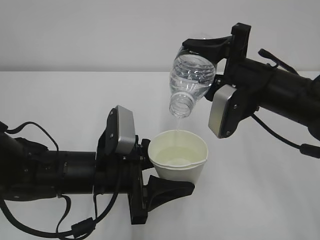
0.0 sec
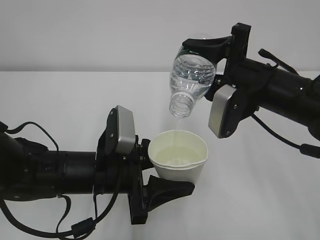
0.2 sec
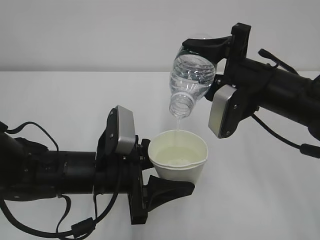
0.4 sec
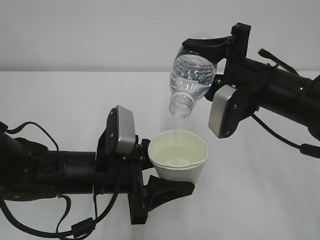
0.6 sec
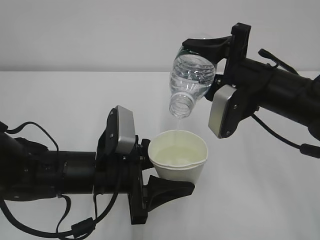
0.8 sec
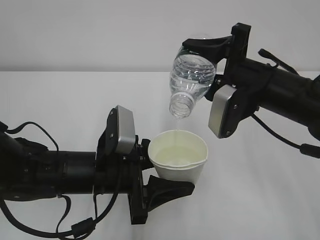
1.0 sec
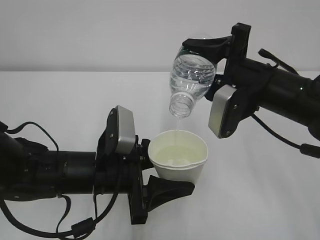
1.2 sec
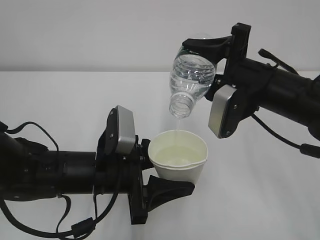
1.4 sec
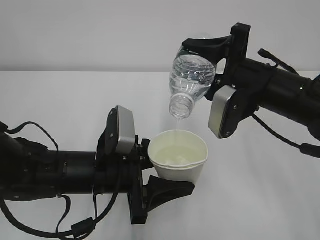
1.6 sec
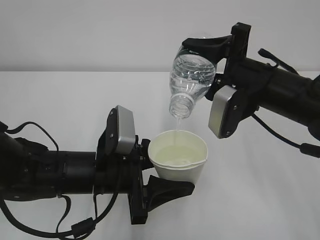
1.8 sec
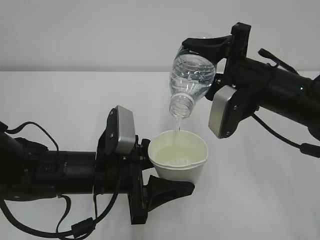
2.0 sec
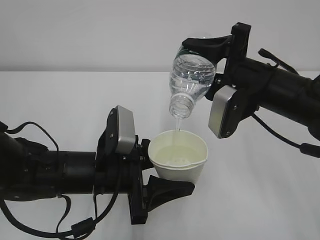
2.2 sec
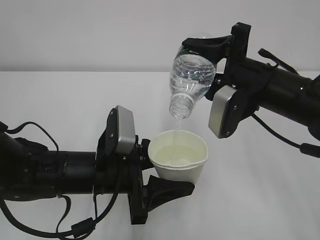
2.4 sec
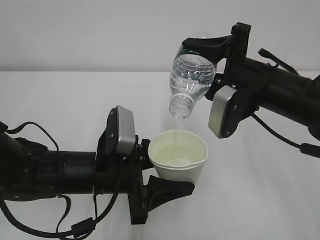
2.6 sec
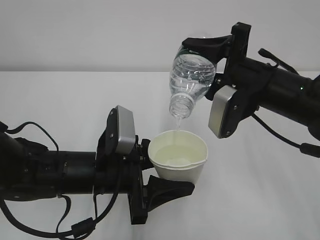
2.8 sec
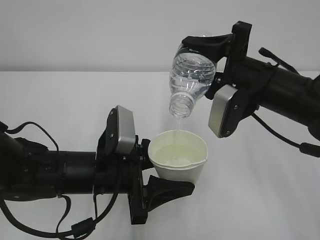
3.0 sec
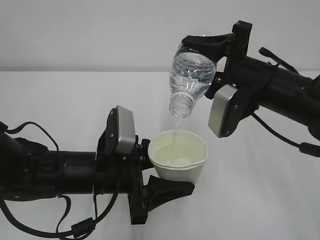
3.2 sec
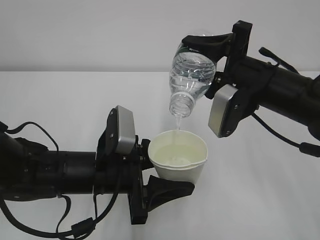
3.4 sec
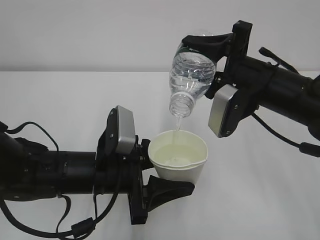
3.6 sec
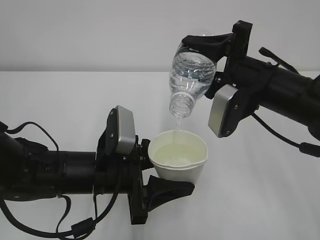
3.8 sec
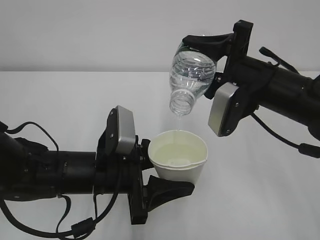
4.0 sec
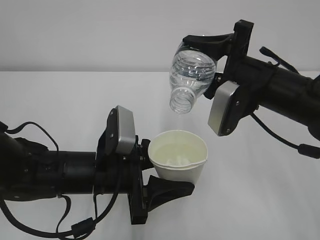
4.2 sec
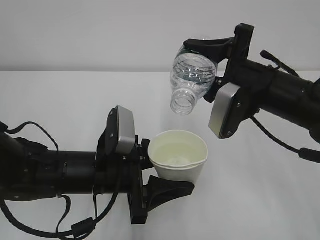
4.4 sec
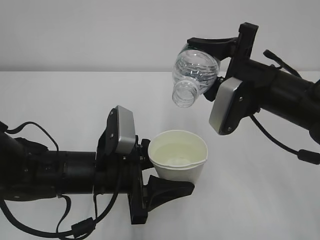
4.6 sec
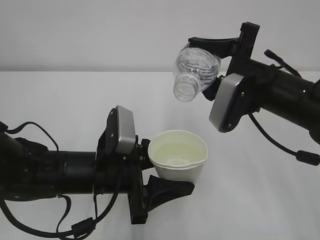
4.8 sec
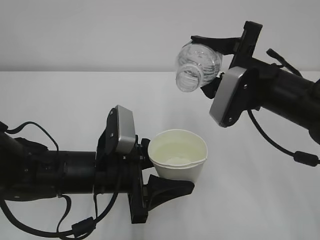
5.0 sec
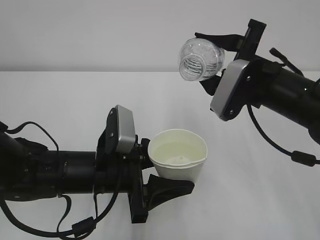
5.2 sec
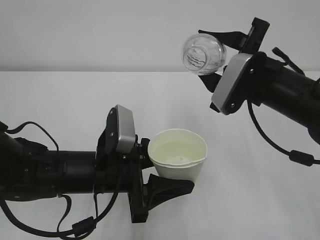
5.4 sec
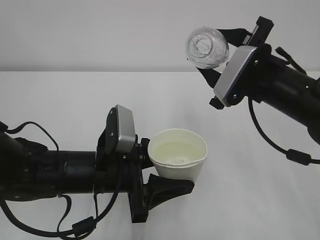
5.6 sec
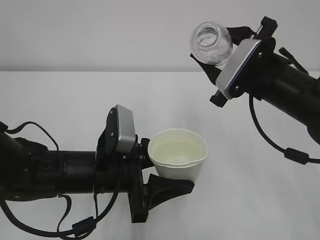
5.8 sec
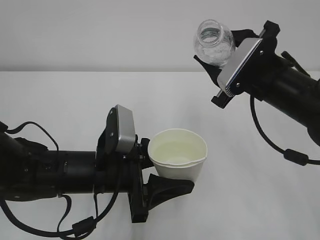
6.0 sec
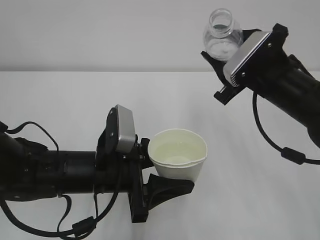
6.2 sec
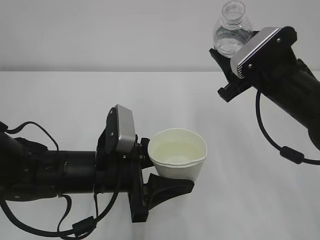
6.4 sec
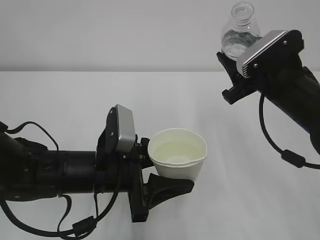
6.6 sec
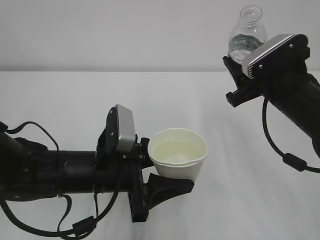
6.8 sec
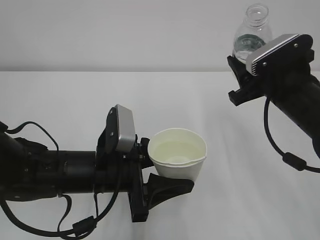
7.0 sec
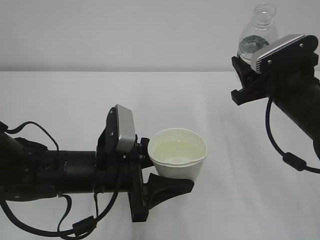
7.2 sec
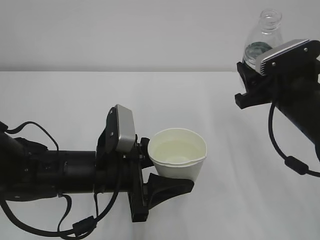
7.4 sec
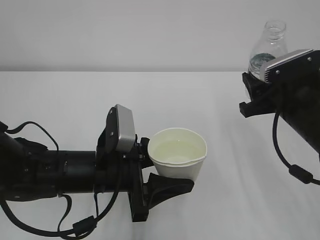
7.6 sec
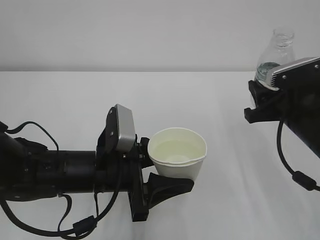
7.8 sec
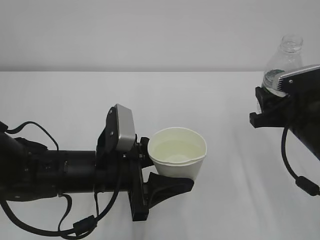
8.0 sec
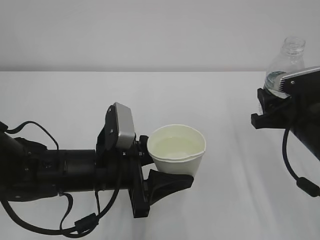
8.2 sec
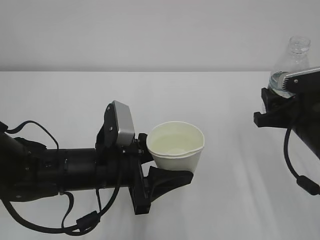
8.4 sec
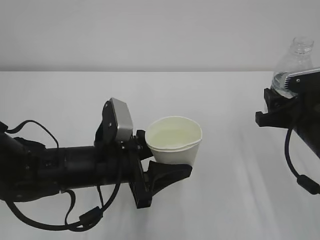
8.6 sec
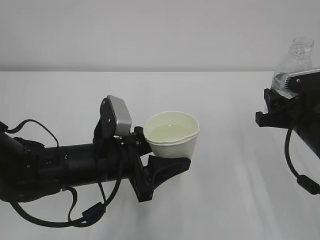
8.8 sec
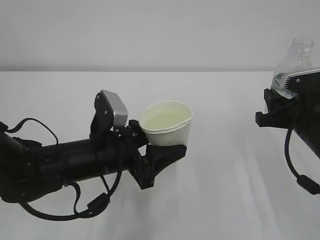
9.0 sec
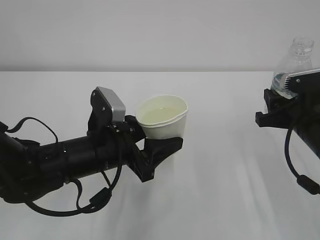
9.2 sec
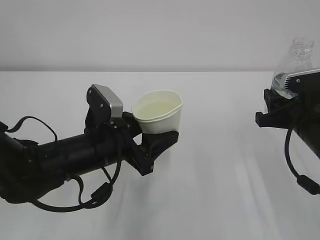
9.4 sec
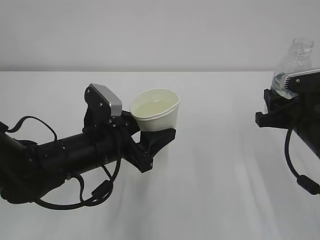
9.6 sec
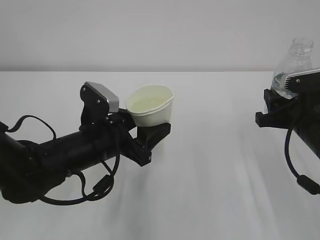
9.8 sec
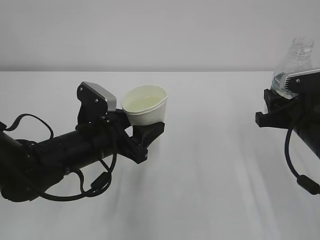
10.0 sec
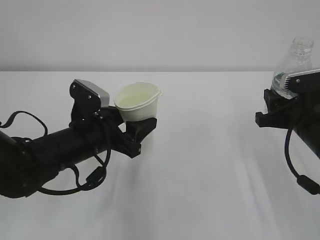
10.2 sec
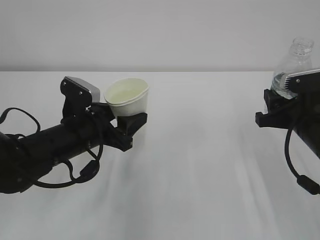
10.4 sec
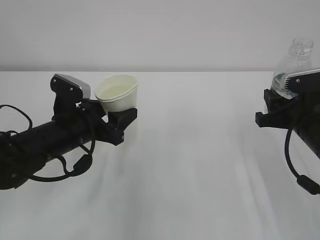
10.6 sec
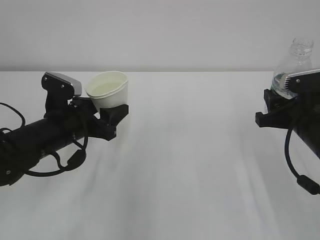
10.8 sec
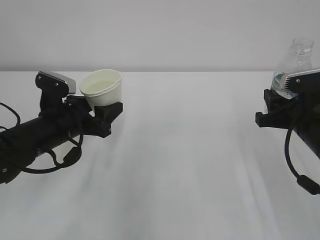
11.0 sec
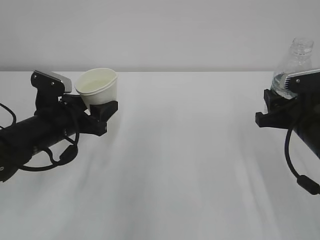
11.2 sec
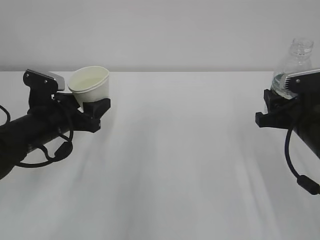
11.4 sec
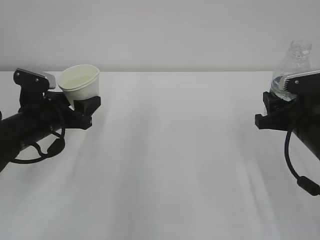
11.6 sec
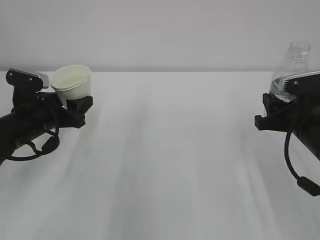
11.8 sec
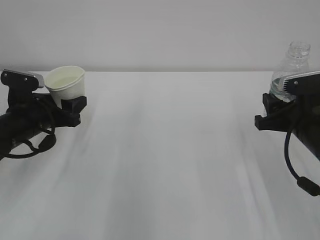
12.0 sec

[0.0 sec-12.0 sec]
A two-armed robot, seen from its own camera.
0.0 sec to 3.0 sec: Both grippers stay about where they are.
3.0 sec to 4.4 sec: The grippers stay close to where they were, moving slightly.
6.0 sec to 7.6 sec: The right gripper ends up some 5 cm from where it was.
7.6 sec to 9.0 sec: There are only small adjustments of the grippers.
9.0 sec to 10.4 sec: The left gripper moves approximately 5 cm.
10.4 sec to 12.0 sec: The left gripper heads to the left, covering some 10 cm.

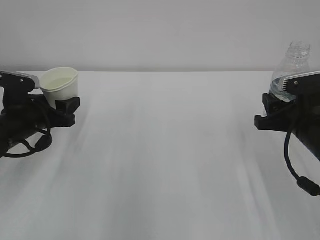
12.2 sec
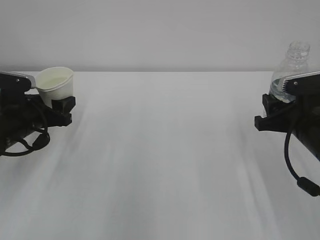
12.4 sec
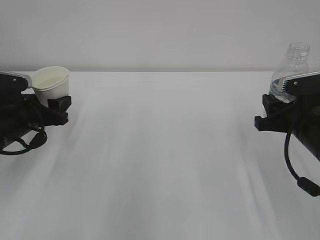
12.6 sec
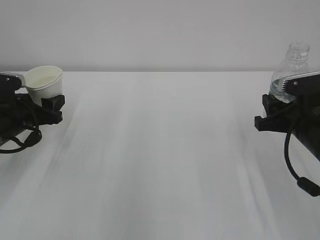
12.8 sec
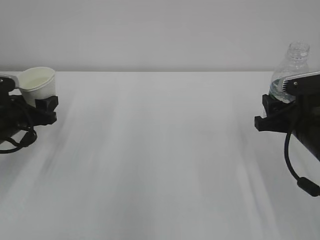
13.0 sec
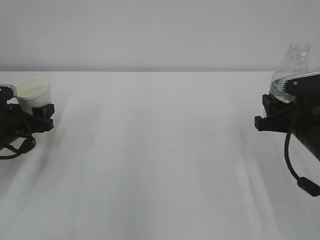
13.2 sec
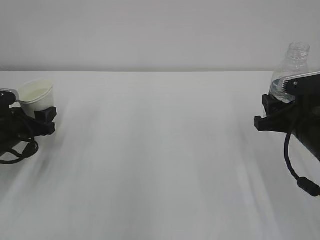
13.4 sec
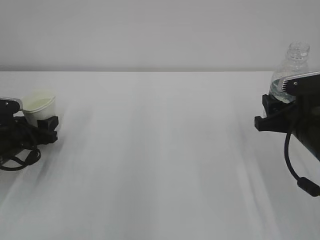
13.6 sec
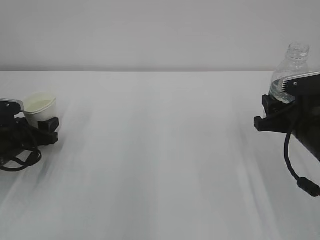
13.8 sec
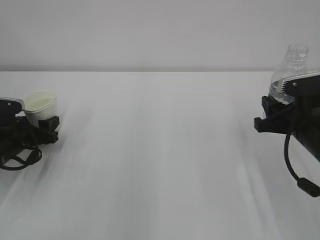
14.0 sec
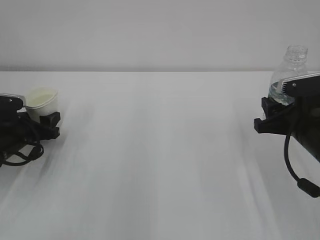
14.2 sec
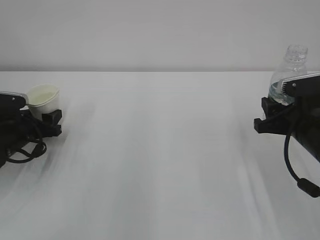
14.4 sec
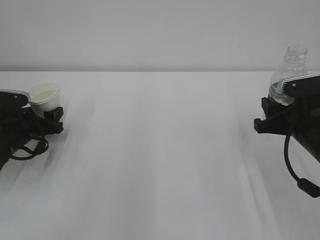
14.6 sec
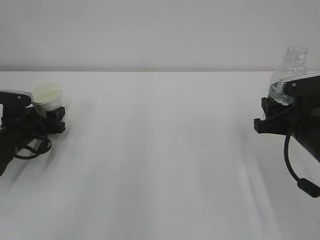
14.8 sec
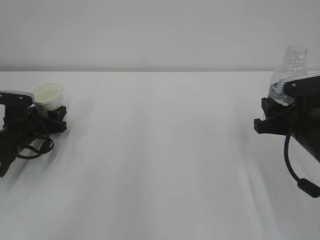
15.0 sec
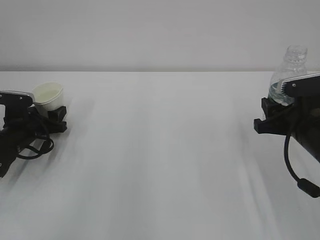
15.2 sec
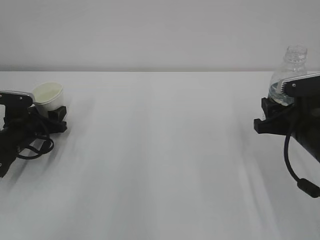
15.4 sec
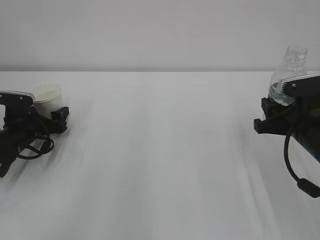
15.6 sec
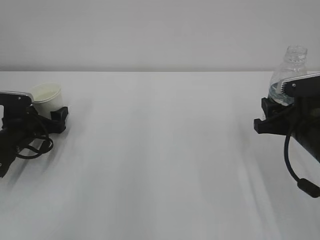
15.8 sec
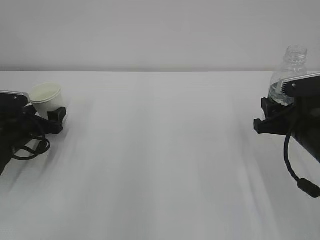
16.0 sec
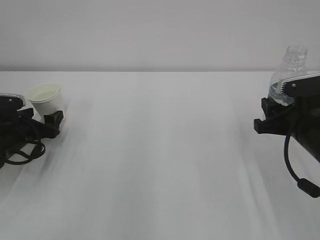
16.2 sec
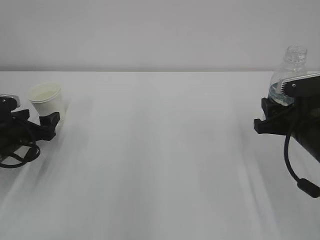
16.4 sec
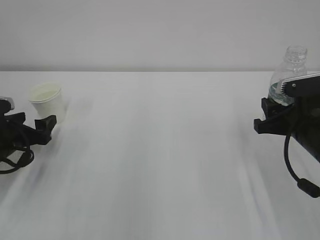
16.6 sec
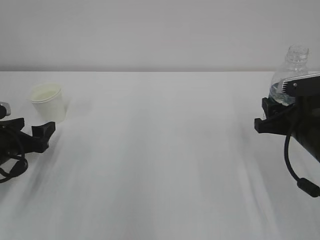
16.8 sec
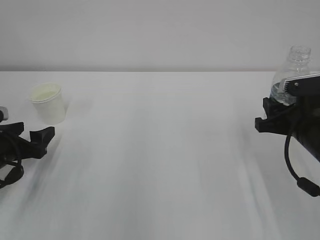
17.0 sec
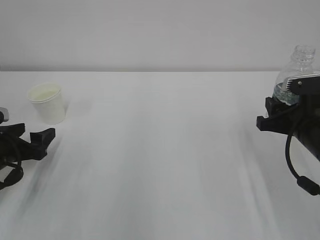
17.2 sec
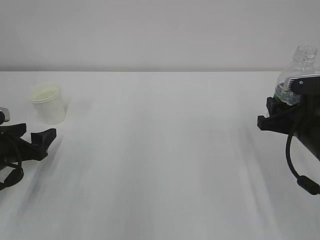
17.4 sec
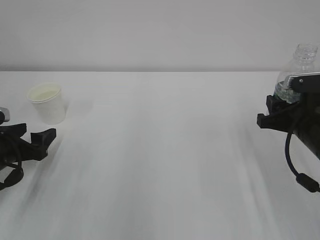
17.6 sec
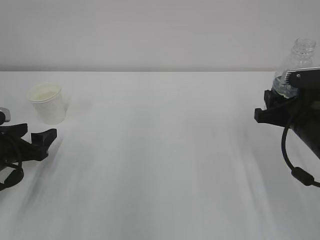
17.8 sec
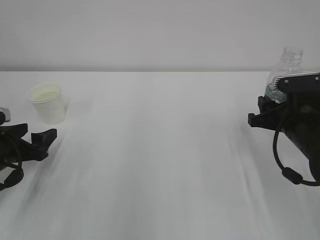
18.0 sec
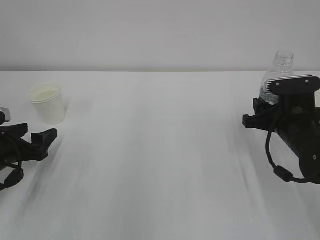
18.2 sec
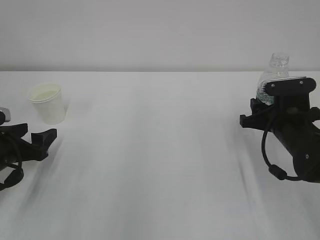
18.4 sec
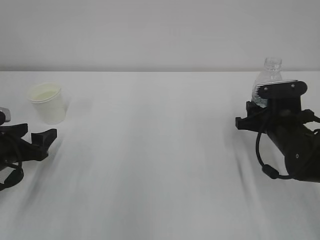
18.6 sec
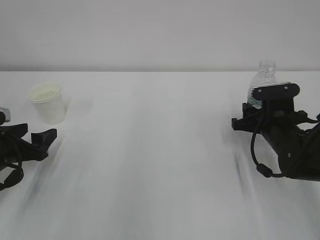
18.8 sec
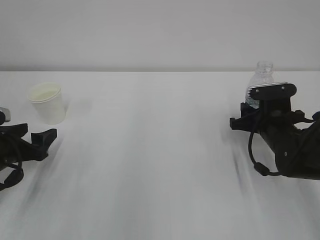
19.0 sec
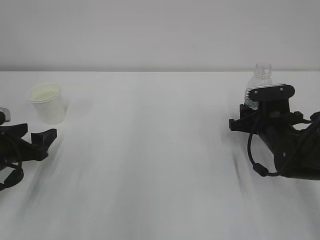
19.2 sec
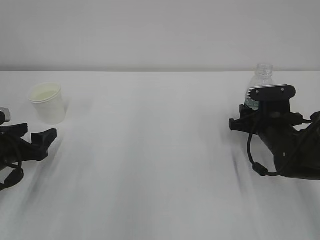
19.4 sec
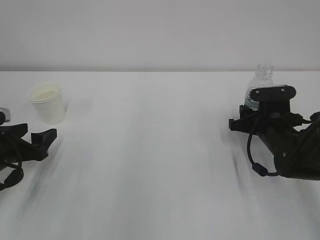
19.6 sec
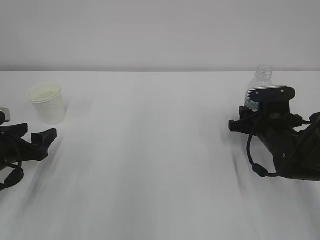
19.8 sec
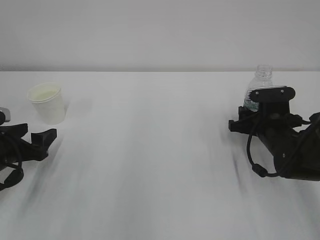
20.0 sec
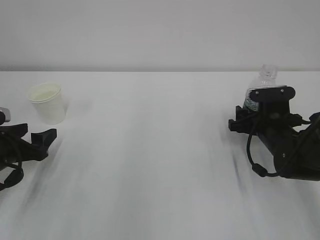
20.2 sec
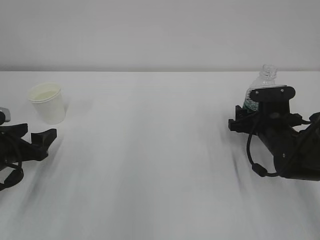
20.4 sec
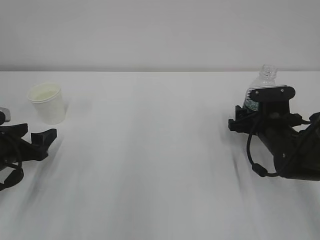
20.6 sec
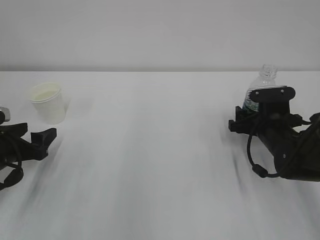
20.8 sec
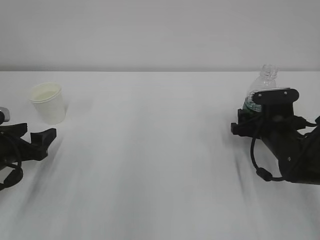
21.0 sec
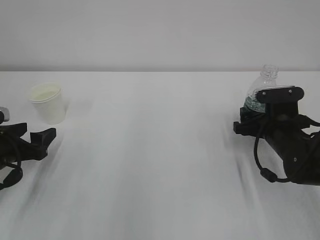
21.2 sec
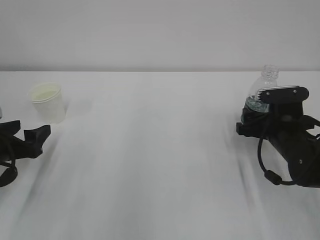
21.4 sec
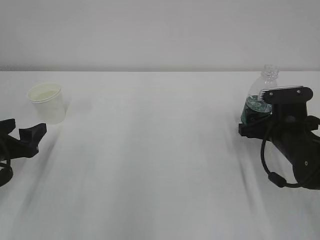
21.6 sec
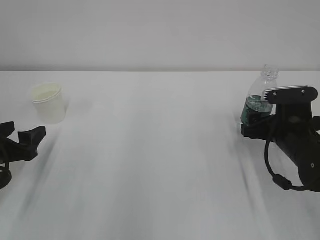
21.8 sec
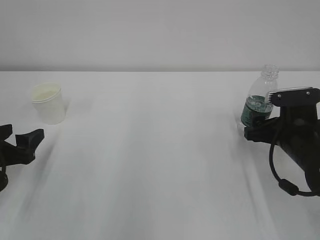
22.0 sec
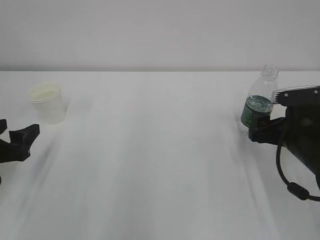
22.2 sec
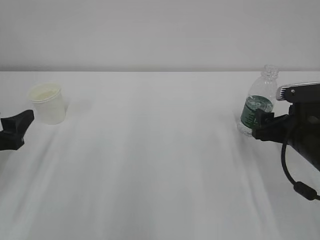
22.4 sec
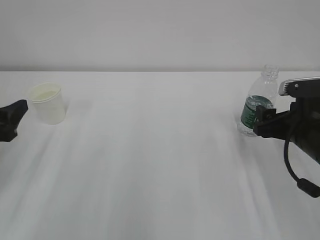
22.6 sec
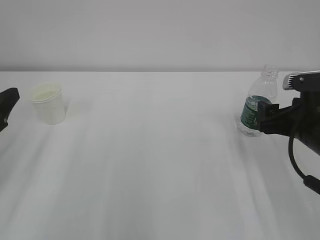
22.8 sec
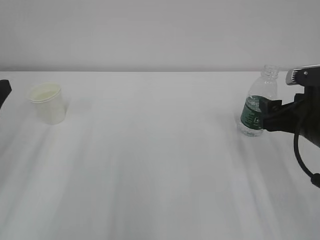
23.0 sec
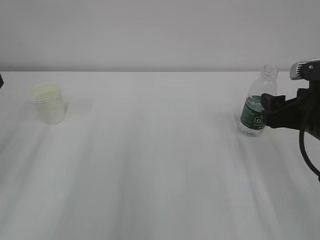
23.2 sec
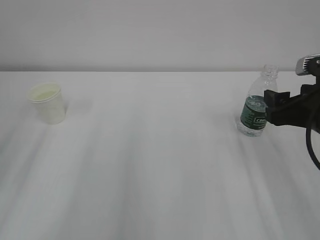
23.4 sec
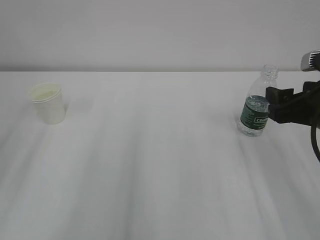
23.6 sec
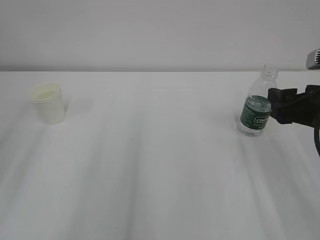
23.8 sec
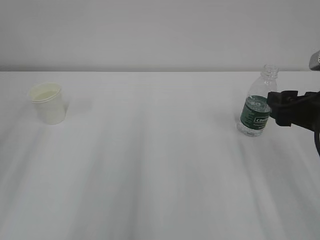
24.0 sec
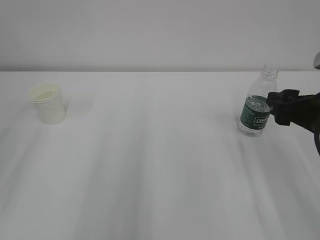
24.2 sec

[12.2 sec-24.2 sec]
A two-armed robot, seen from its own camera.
12.2 sec to 13.8 sec: The left gripper heads downward, covering some 5 cm.
13.8 sec to 15.2 sec: There are only small adjustments of the grippers.
15.2 sec to 16.6 sec: The left gripper shifts some 5 cm backward, and opens its fingers.
16.6 sec to 18.2 sec: The grippers move only a little.
18.2 sec to 19.8 sec: The right gripper changes place by roughly 5 cm.
19.8 sec to 21.2 sec: The right gripper opens.
21.2 sec to 22.6 sec: The right gripper travels upward and backward by roughly 10 cm, while the left gripper heads upward, covering some 10 cm.
22.6 sec to 24.2 sec: The right gripper heads upward, covering approximately 5 cm. Meanwhile the left gripper is displaced upward and backward by about 15 cm.
